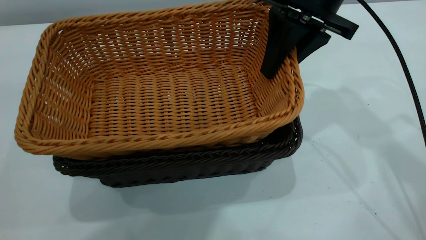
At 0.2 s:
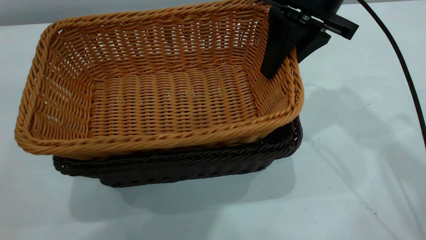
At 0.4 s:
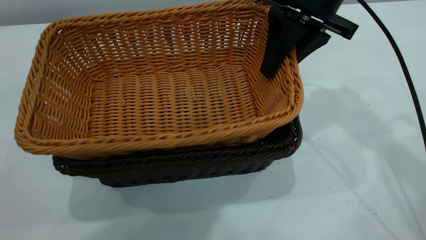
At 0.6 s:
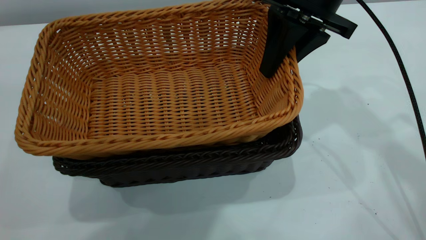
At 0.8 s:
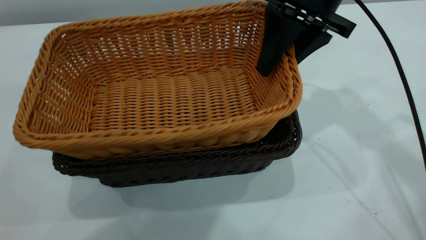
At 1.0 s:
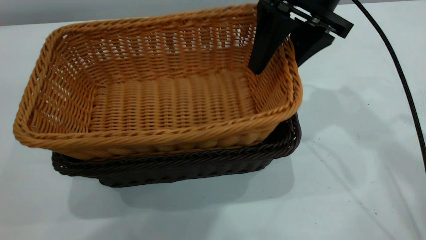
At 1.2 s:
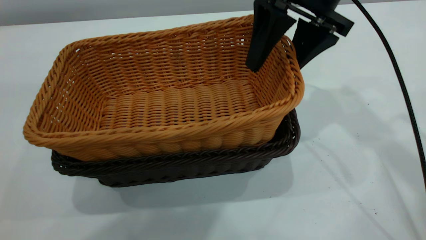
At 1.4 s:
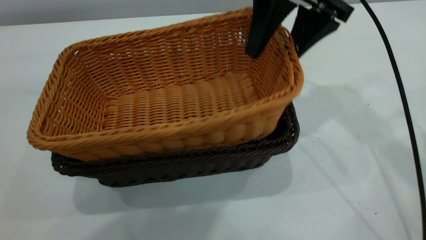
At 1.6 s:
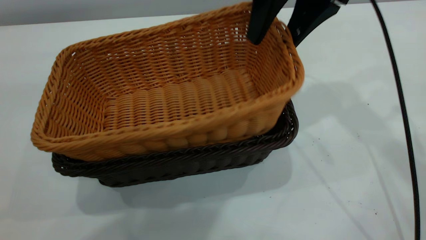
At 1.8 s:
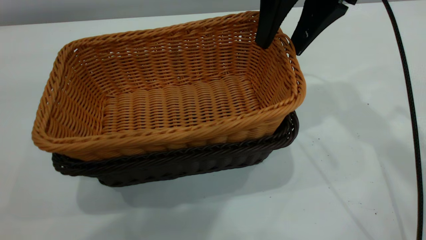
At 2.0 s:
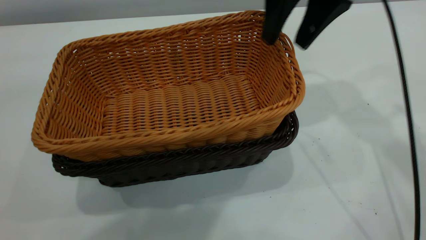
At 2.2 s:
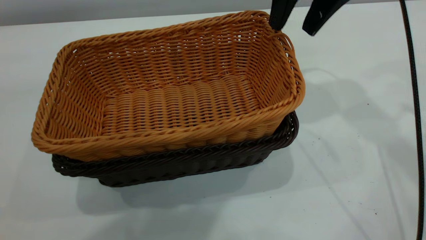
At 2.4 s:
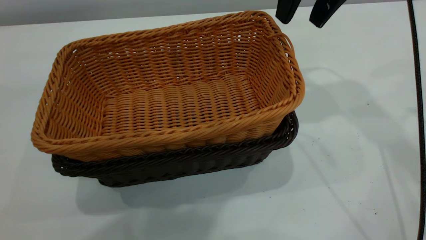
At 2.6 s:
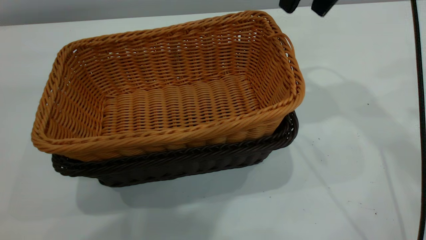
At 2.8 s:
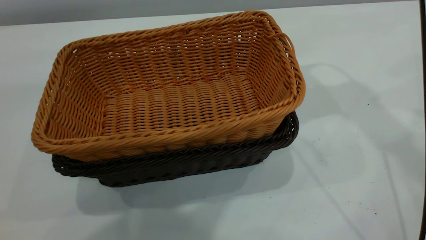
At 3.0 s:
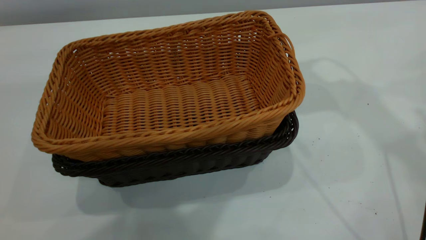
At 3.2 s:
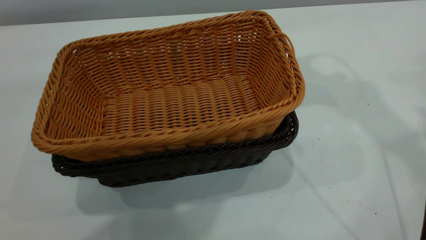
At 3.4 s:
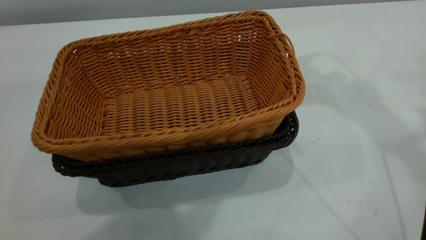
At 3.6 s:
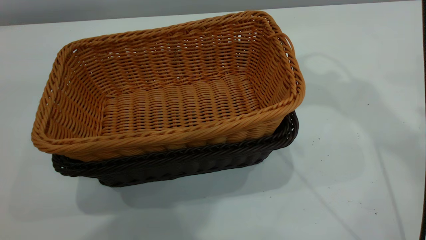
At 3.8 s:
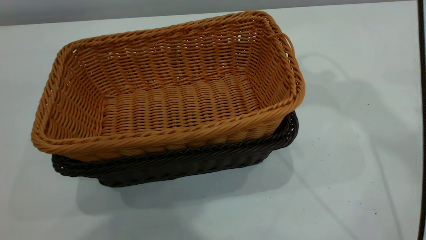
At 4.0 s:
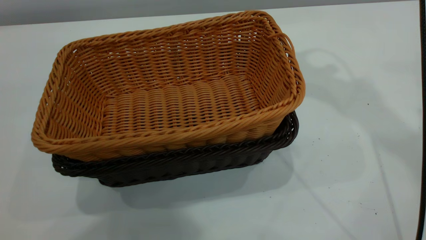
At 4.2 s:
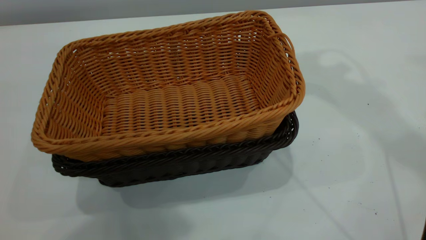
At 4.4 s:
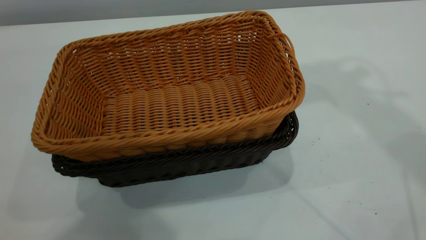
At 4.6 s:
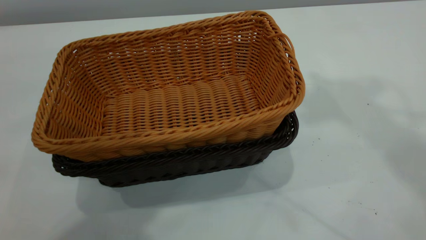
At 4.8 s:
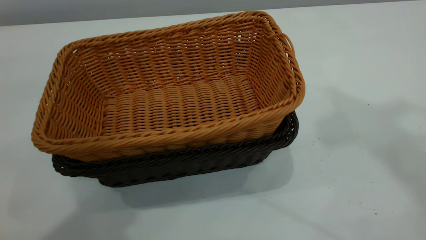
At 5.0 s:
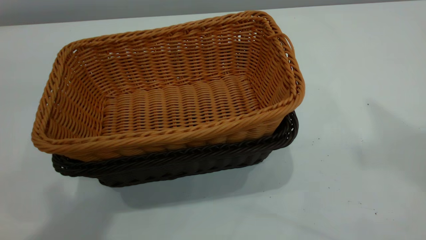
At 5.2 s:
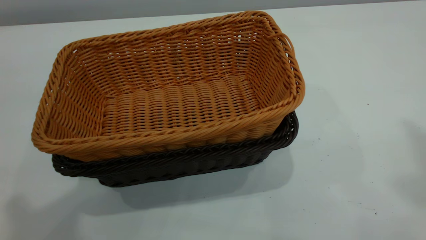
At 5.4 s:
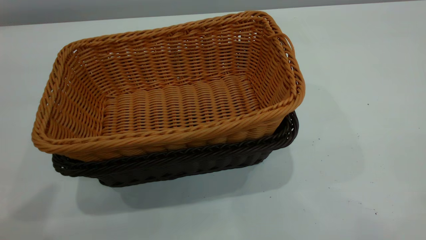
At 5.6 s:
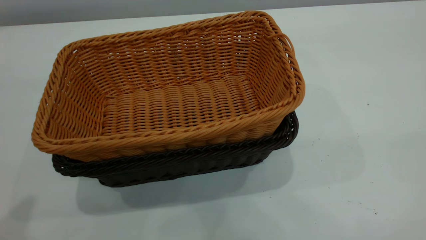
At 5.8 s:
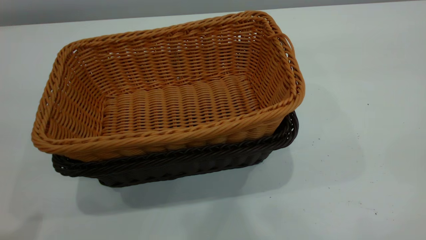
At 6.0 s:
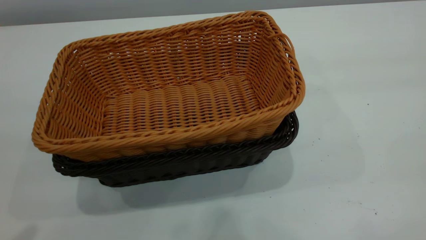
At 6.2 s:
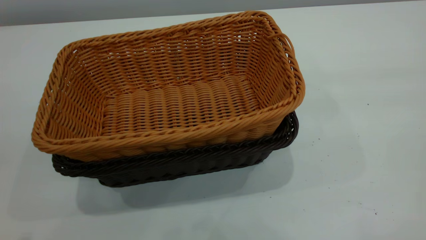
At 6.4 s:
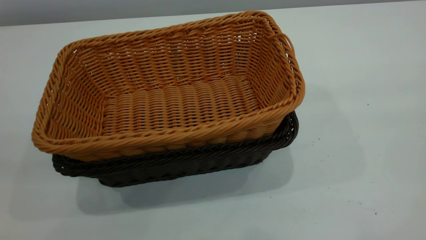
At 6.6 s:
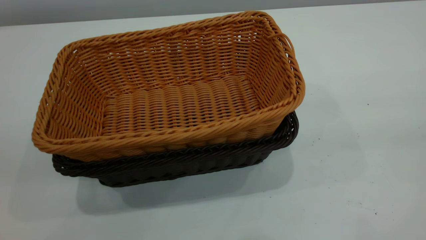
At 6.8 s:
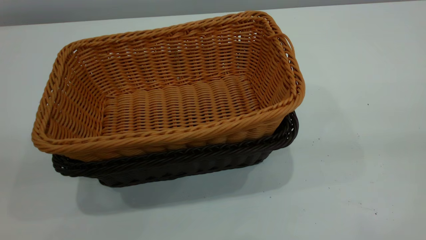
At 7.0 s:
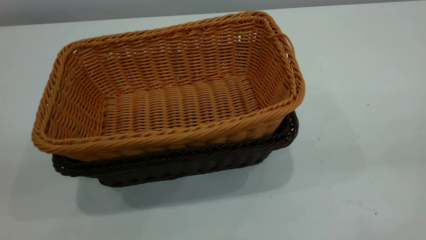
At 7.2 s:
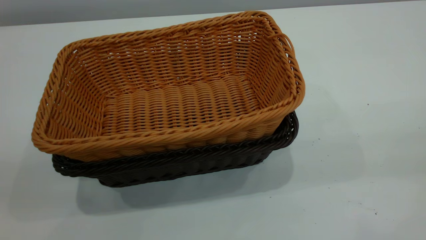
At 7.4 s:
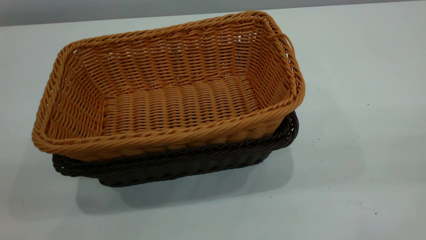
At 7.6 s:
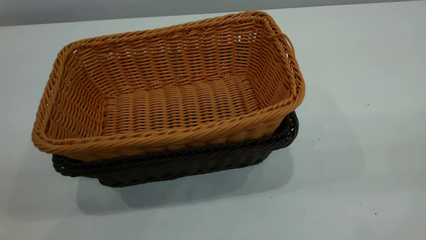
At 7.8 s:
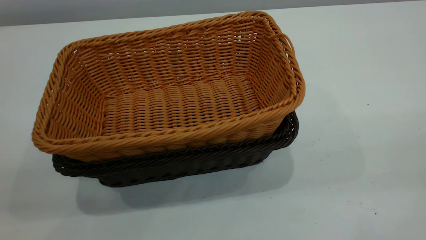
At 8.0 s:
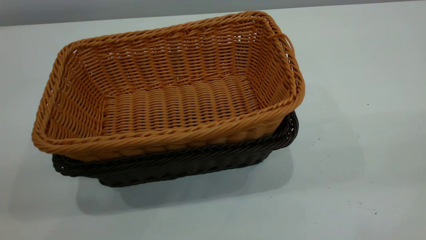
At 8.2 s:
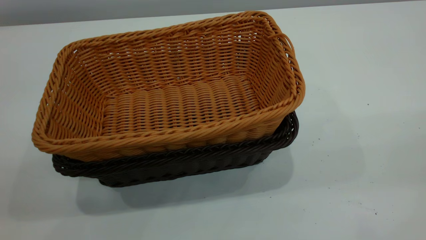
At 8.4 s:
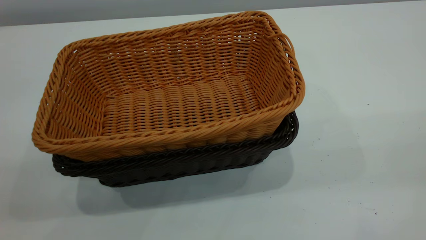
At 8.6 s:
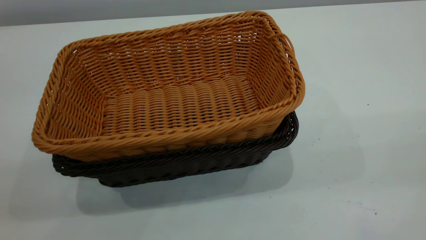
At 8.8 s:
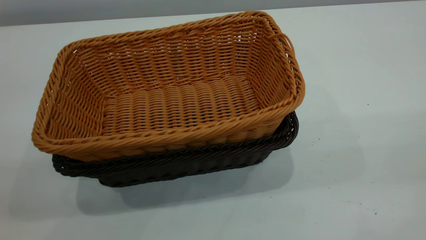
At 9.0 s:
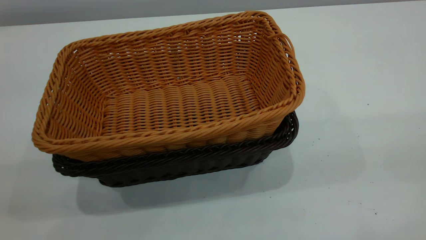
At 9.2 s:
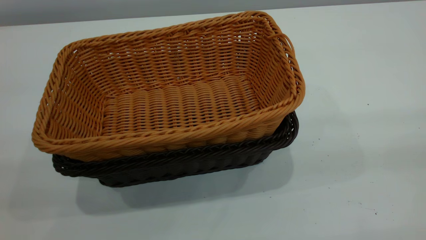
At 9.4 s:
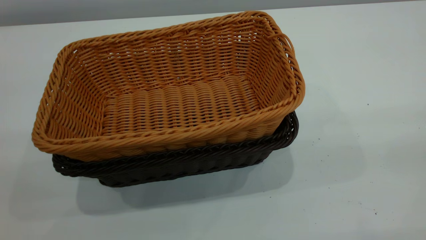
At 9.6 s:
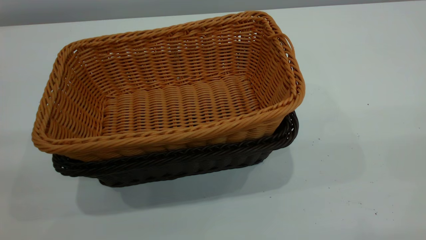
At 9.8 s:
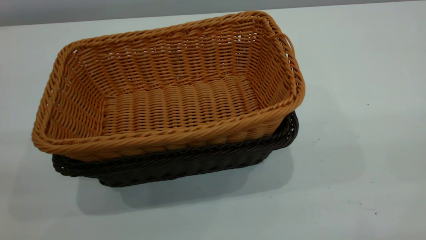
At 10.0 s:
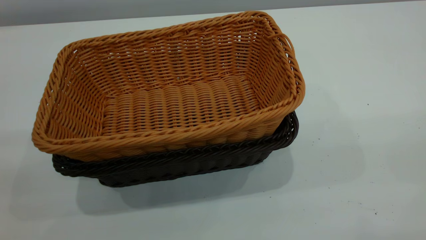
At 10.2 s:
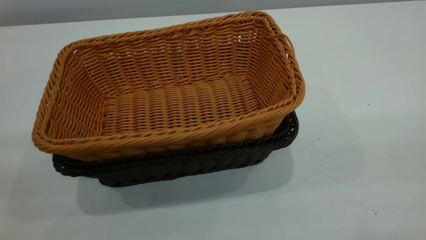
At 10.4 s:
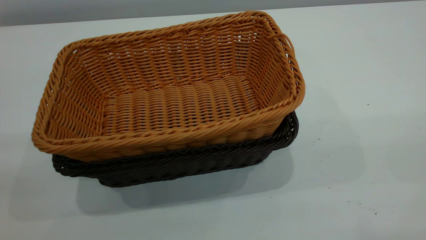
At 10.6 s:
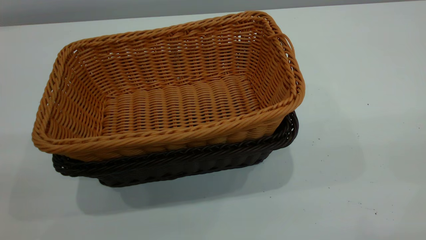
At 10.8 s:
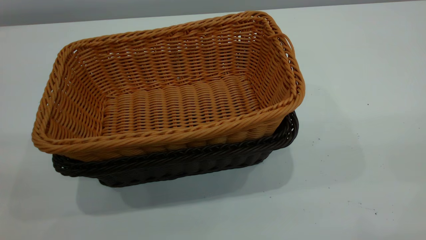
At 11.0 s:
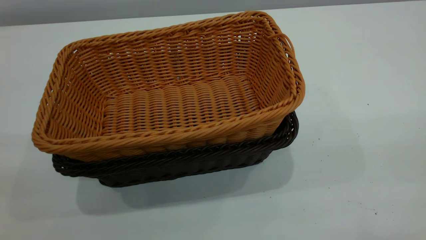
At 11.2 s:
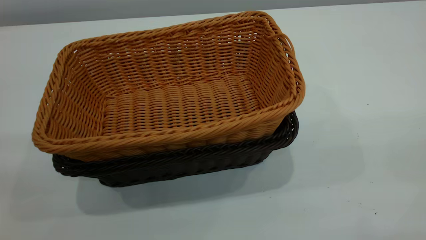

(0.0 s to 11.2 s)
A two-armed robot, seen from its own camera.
Task of the whole recording: the left gripper grasp the black basket and place it in the center of the table, the right gripper grasp the brown basket and place it inside the black one.
Step, 0.0 s - 2.2 s: Place the light basket on the dark basket.
0.0 s - 1.6 s: The right gripper opens up.
1.6 s - 3.2 s: The right gripper heads upward, covering approximately 10 cm, and closes up.
3.2 s - 4.8 s: The left gripper travels to the left by approximately 5 cm, and closes up; the right gripper goes roughly 25 cm upward and backward.
4.8 s - 6.4 s: The left gripper moves backward, to the left and downward, roughly 15 cm.

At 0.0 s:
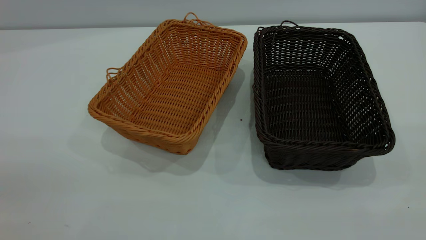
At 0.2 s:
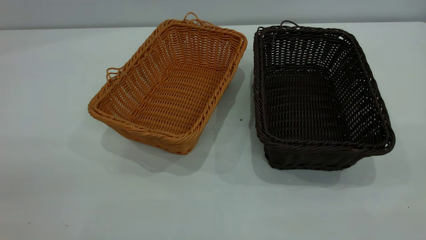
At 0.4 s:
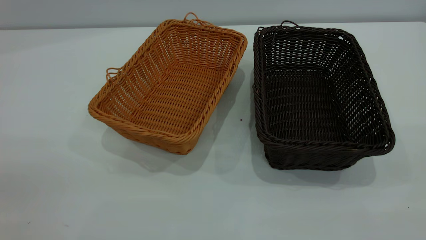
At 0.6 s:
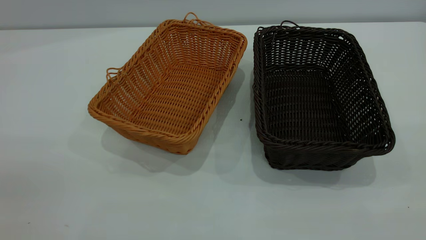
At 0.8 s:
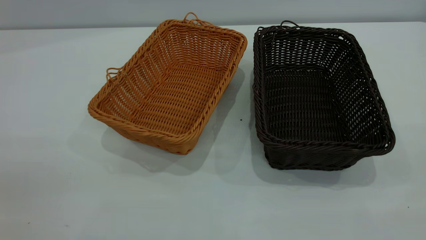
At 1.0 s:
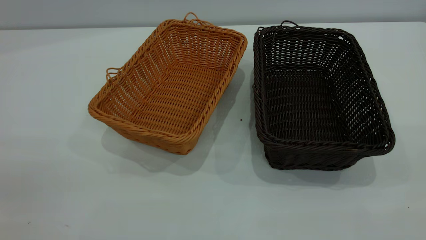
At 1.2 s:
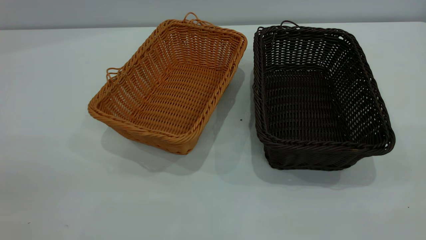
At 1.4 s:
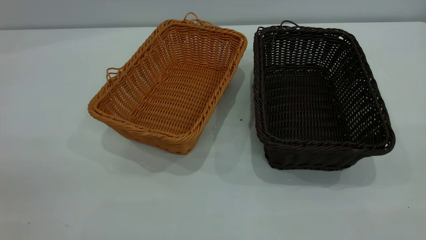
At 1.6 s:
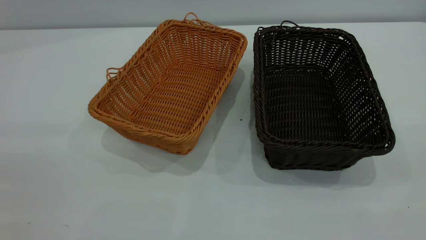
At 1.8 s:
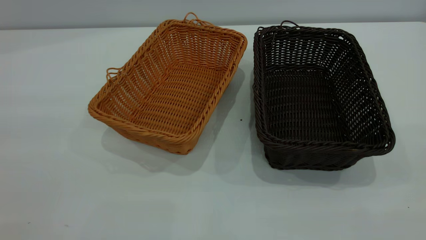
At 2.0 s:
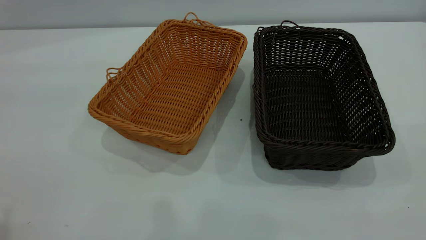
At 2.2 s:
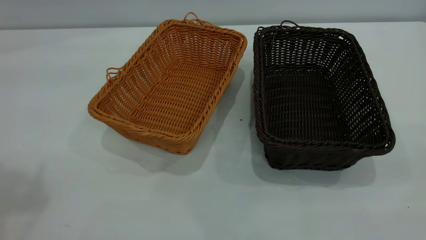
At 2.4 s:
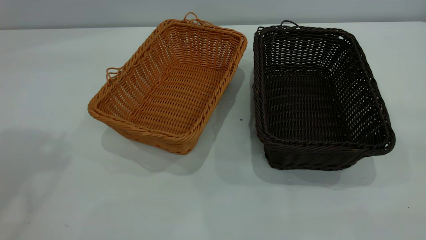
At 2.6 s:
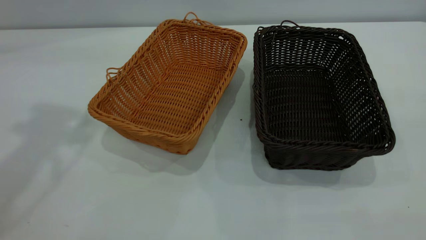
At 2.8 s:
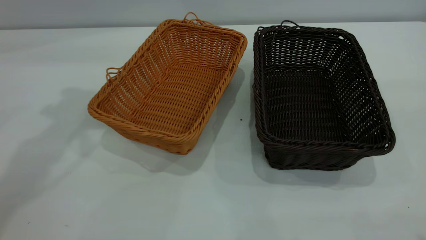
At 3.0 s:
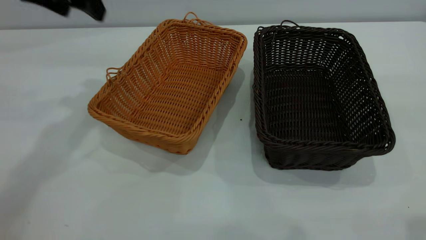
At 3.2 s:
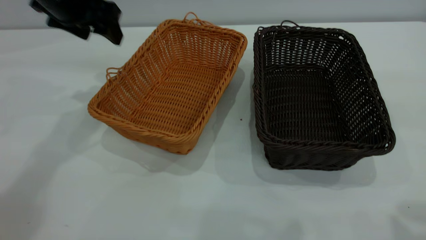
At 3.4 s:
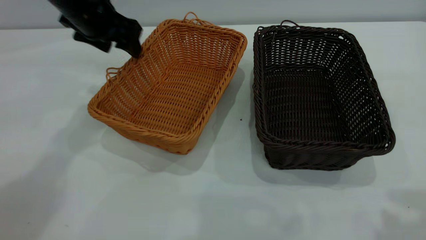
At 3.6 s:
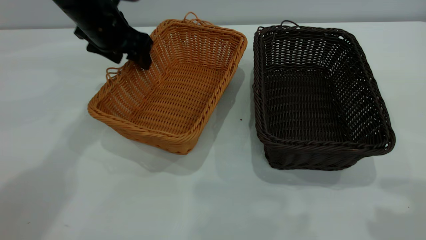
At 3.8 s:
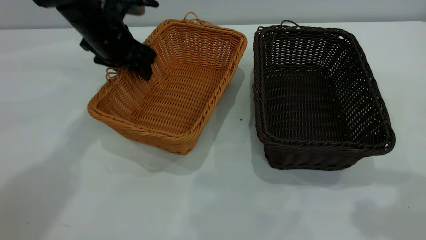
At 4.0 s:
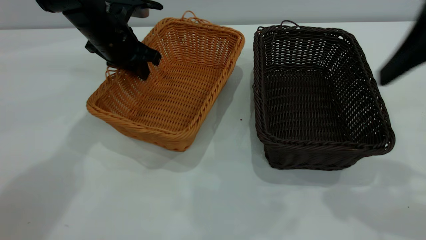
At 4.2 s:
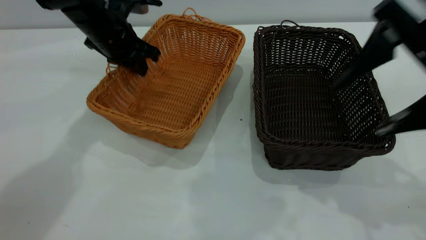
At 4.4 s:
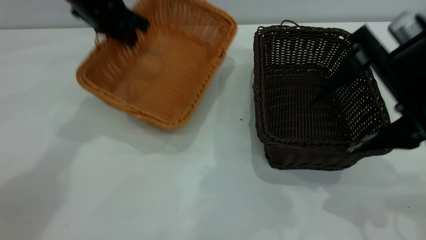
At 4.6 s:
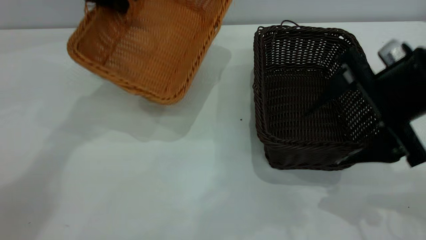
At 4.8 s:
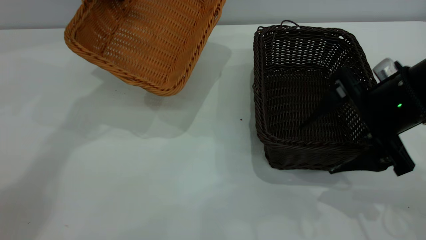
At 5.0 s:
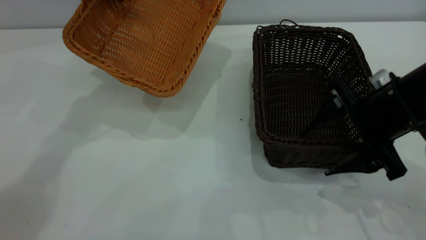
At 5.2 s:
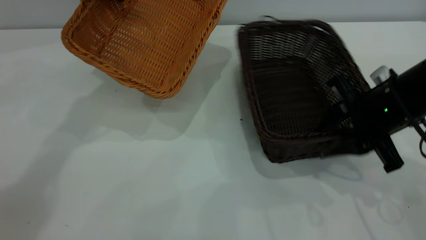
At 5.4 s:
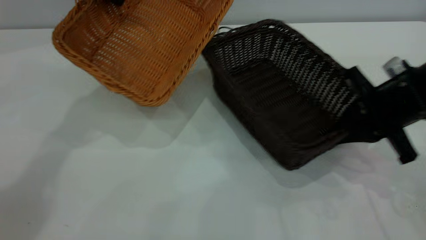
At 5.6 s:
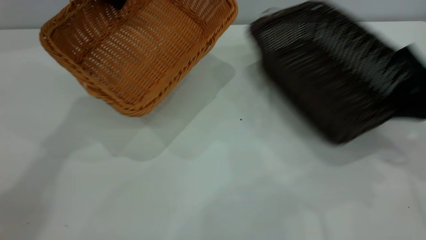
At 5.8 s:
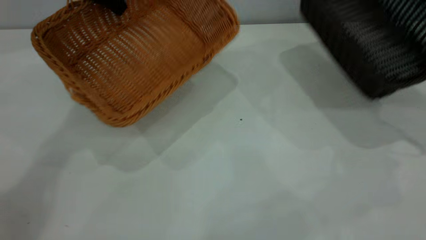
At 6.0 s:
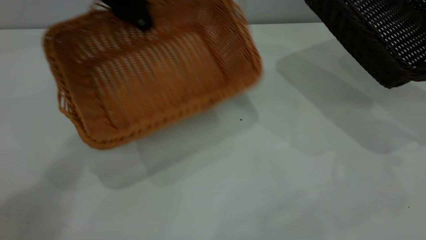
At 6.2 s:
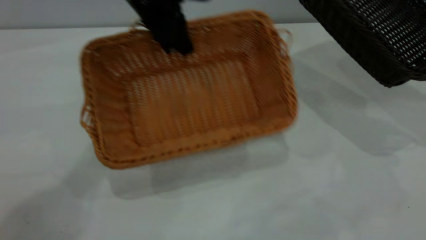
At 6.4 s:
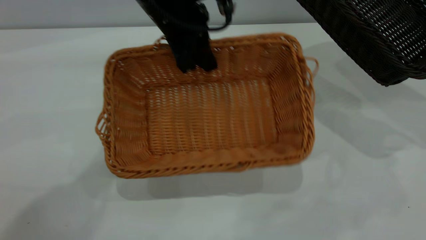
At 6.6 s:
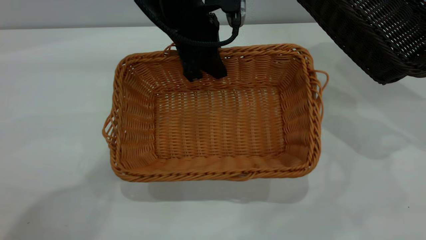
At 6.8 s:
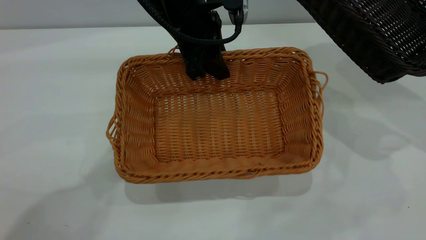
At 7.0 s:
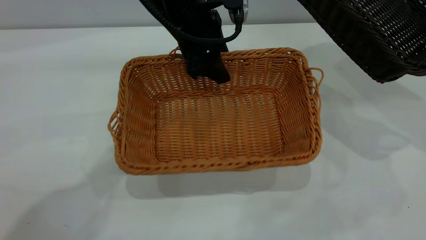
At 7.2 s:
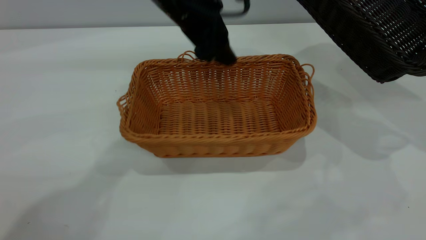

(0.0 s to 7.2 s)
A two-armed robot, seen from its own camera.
Task of the whole recording: the left gripper grasp the brown basket and place it in the center of the table, the right gripper grasp the black basket and place it inside the brown one.
Step, 0.0 s - 5.6 s: Pick up the light basket with the right gripper.
0.0 s - 1.4 s: Both grippers stay about where they are.
2.8 s - 4.4 s: The right gripper moves downward and forward, roughly 25 cm, while the left gripper moves downward, forward and to the right, about 15 cm, and closes.
4.4 s - 5.8 s: The left gripper is displaced upward by about 5 cm. The right gripper goes approximately 15 cm to the right, and closes.
5.8 s - 7.2 s: The left gripper is displaced to the right by about 15 cm, and opens its fingers.
